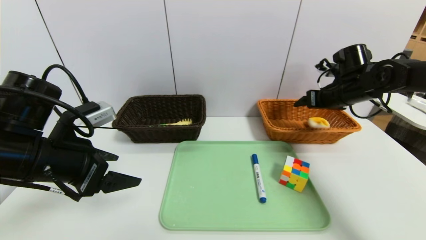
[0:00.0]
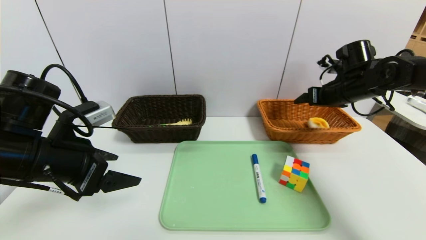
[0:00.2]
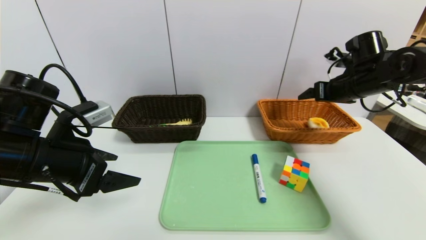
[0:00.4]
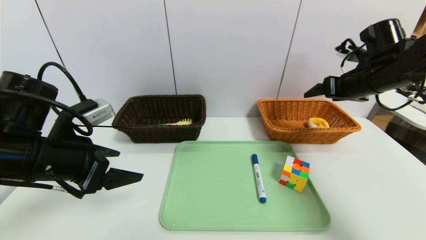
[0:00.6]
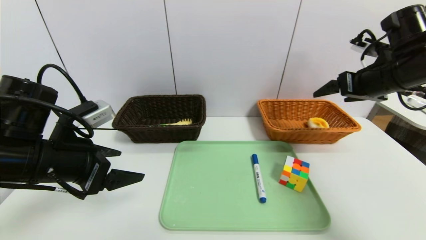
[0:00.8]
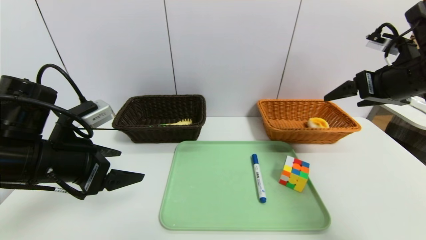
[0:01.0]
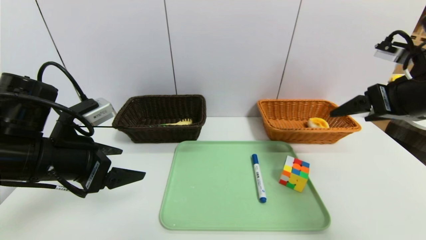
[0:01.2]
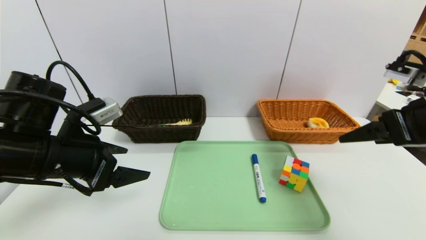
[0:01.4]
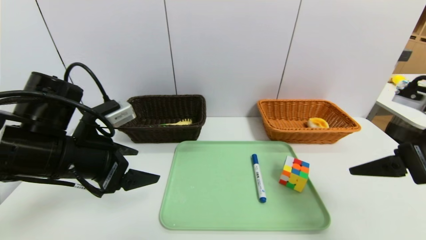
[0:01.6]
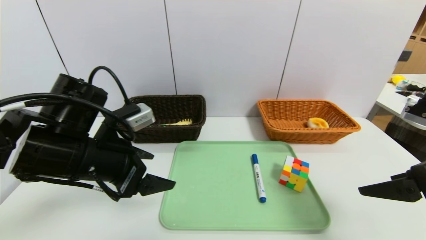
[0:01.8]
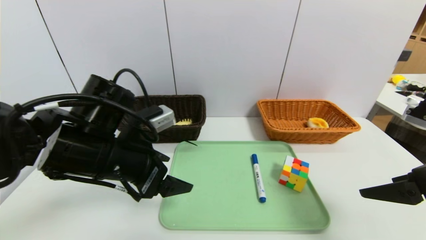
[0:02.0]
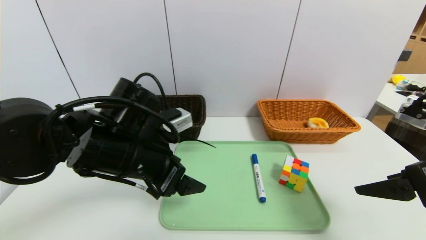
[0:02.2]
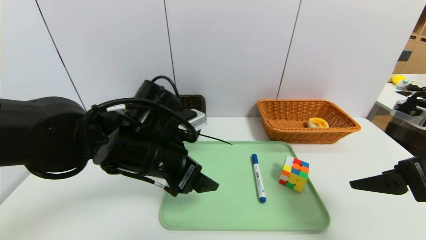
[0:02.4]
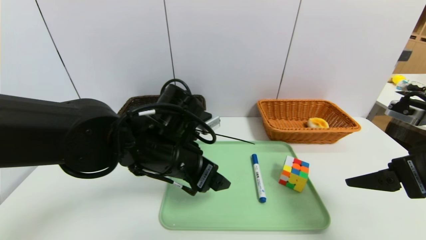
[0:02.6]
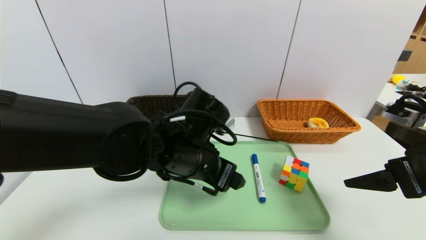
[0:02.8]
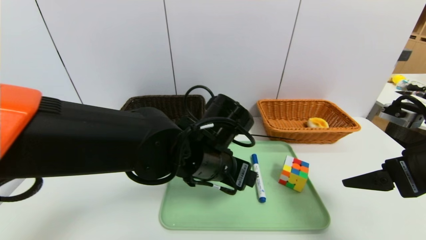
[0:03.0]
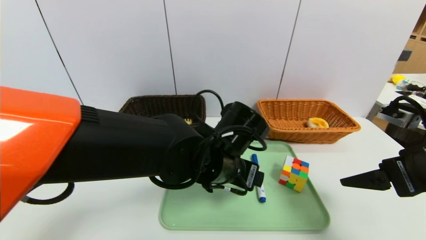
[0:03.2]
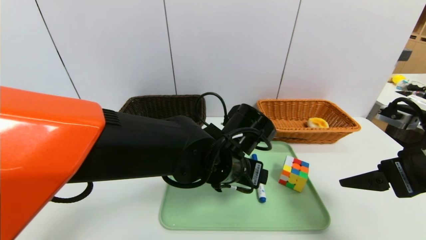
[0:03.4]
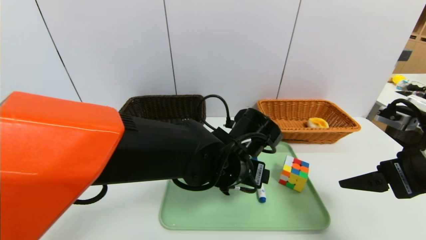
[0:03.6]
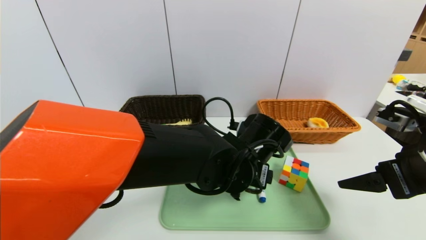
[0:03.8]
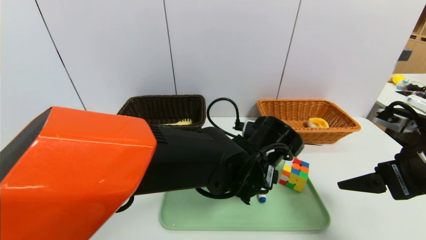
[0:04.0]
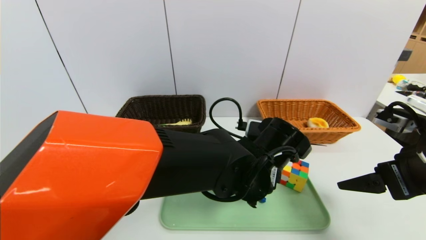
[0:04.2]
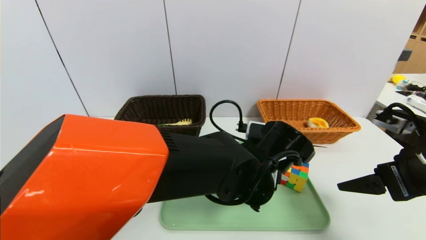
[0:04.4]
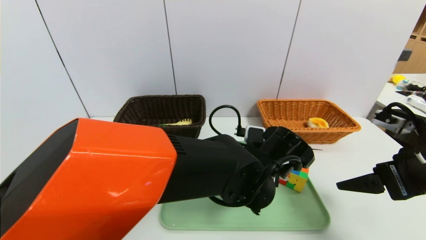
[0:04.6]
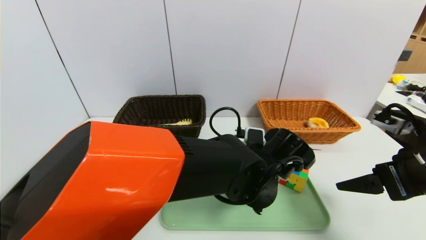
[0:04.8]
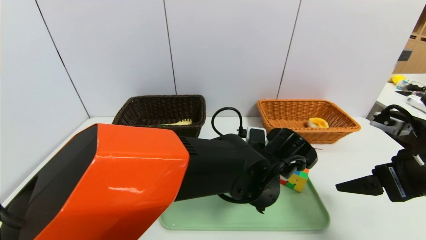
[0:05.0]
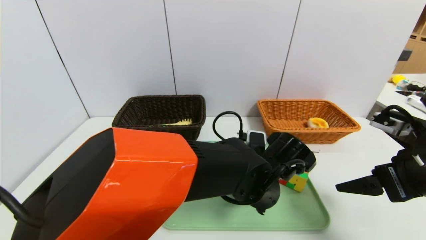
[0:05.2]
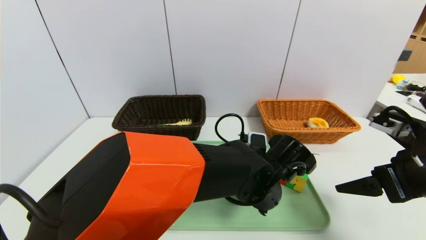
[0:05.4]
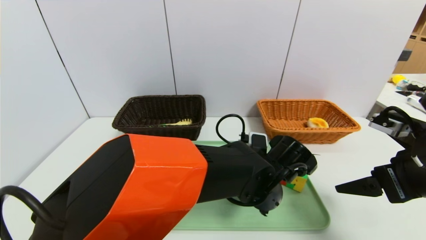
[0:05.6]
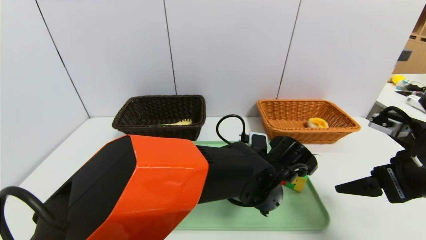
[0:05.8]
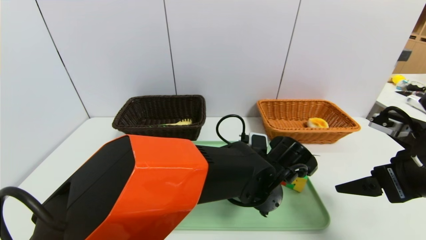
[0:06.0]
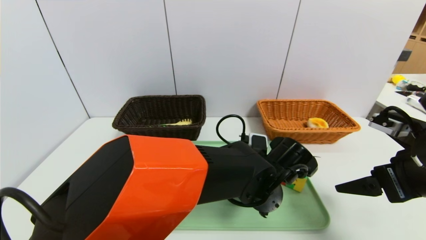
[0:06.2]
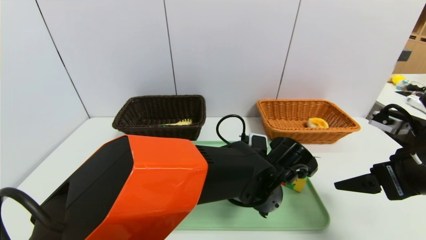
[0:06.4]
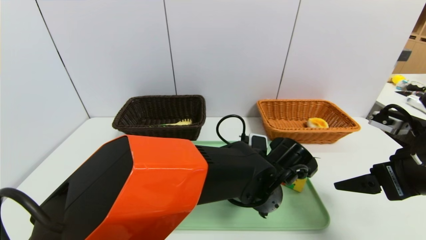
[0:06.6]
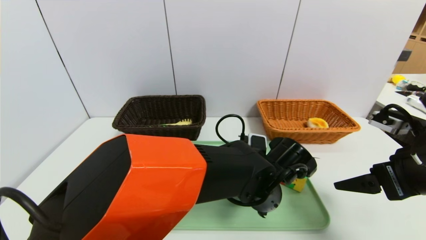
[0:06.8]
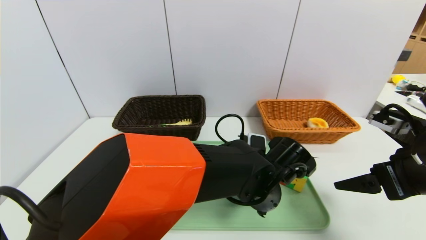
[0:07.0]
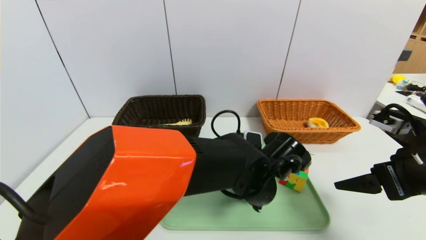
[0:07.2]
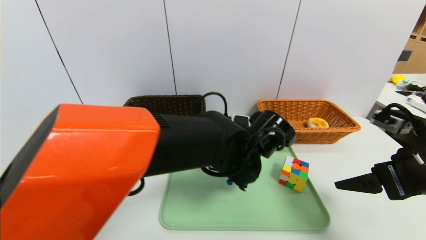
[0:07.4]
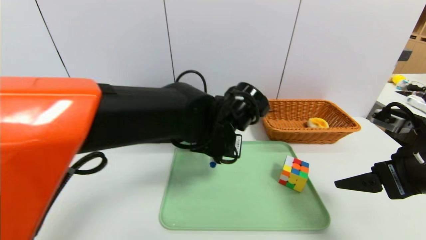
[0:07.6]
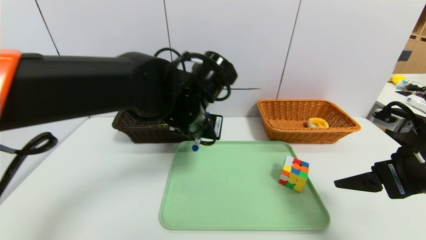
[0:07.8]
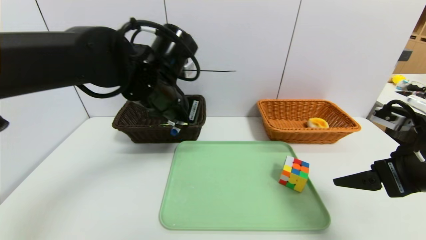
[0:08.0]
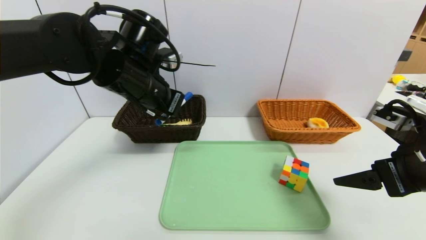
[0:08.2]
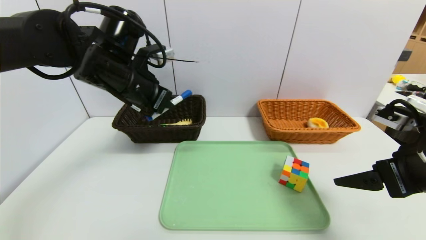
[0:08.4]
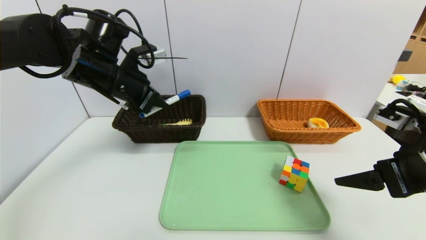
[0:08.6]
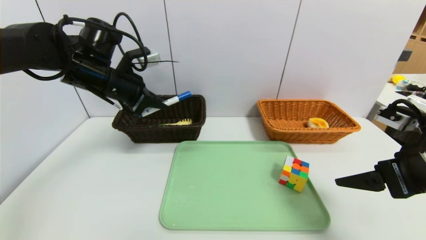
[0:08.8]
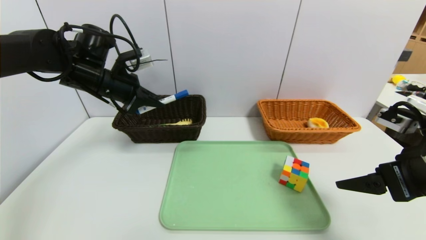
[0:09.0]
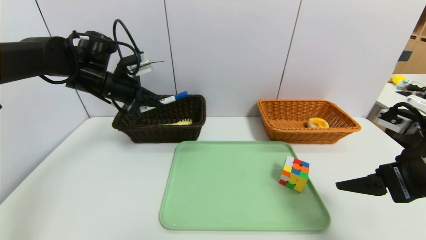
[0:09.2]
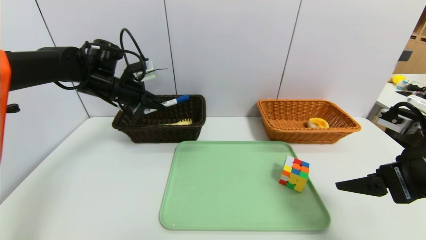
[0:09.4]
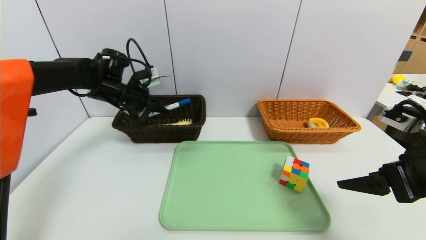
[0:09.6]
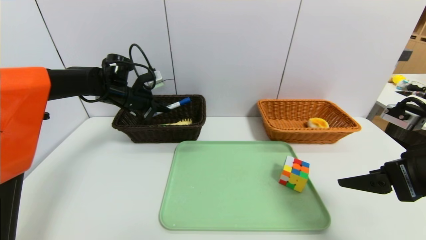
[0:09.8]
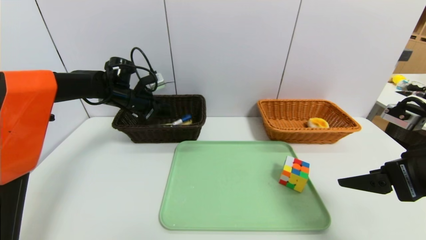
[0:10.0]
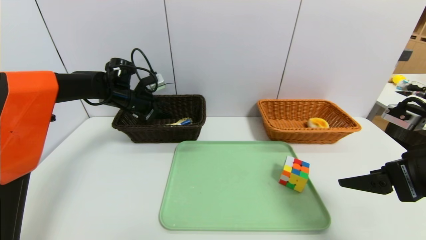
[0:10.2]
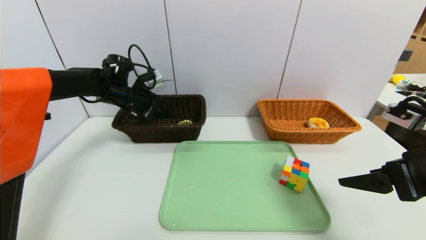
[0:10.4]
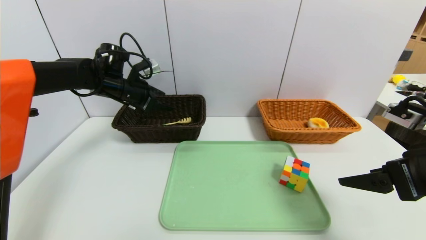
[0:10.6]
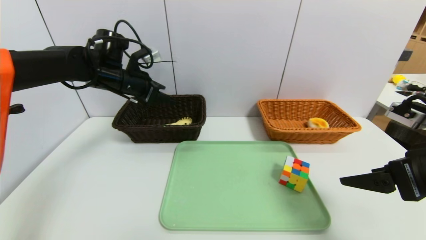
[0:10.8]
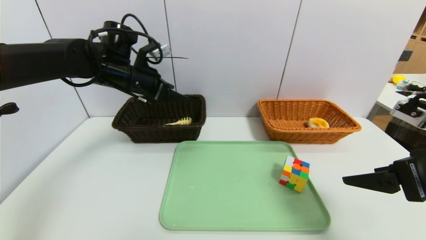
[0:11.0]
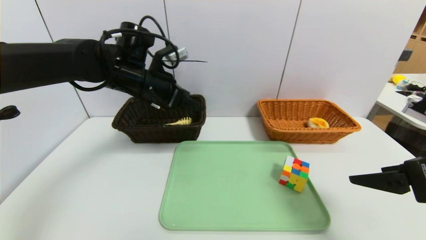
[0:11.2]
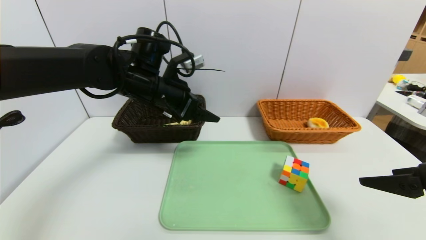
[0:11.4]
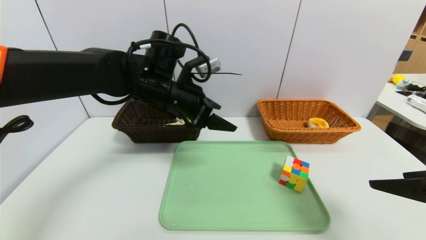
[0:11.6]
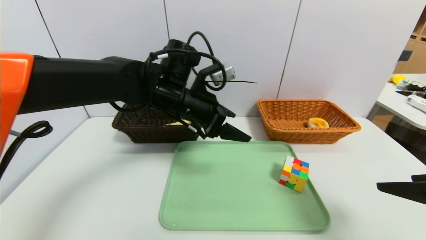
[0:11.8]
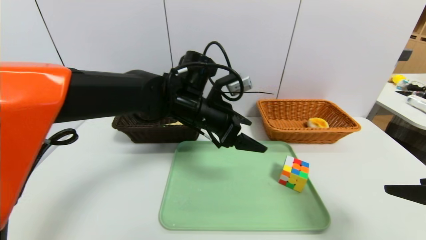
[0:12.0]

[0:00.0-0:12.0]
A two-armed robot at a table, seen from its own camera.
Task of the whole recording: place the food in the right basket with the right gripper, and place the non food items in the left basket with the left gripper.
Step, 0:00.8 to 0:11.0: Grasp the blue marker and put it in the left basket.
0:00.0 to 0:01.6: The right gripper goes approximately 25 cm backward.
0:01.6 to 0:03.0: The left gripper is displaced to the right by about 20 cm.
0:03.0 to 0:04.4: The left gripper goes approximately 10 cm to the right.
0:06.0 to 0:07.6: The left gripper moves upward and to the left, roughly 15 cm, and closes its fingers.
0:07.6 to 0:09.0: The left gripper is displaced to the left and forward by about 25 cm.
0:09.0 to 0:10.4: The left gripper travels forward and downward by approximately 10 cm, and opens.
0:10.4 to 0:12.0: The right gripper is displaced backward by about 5 cm. The left gripper heads to the right and backward, covering about 25 cm.

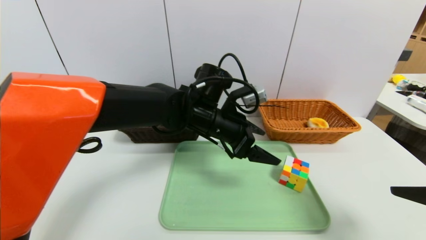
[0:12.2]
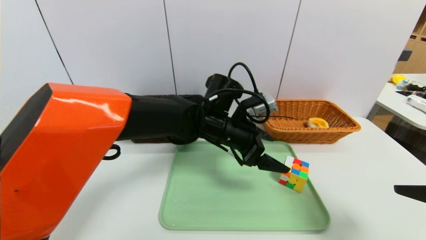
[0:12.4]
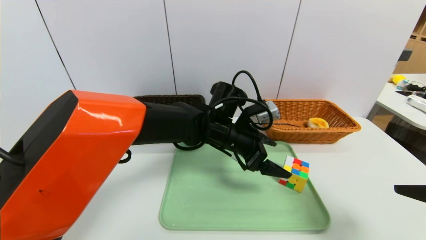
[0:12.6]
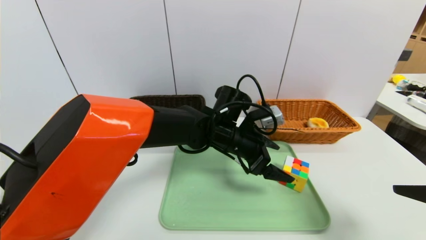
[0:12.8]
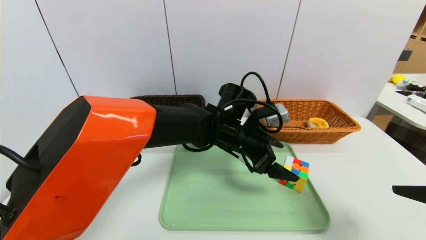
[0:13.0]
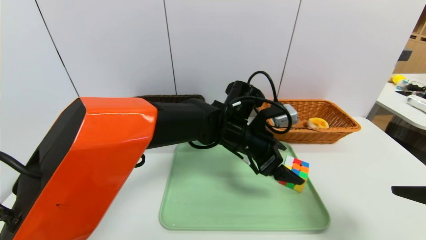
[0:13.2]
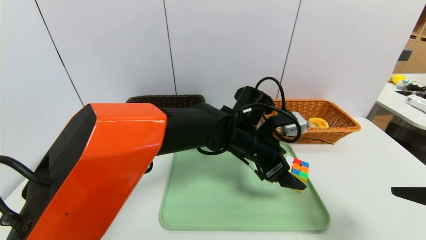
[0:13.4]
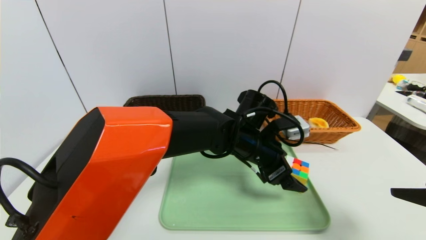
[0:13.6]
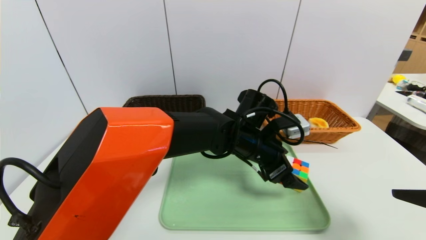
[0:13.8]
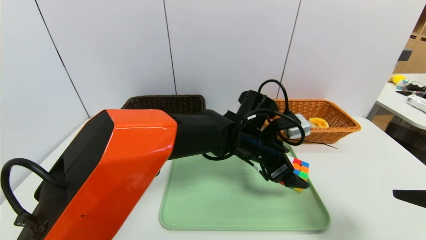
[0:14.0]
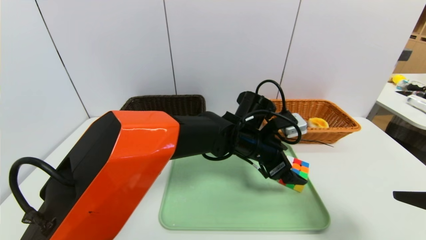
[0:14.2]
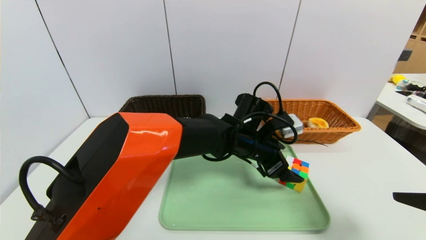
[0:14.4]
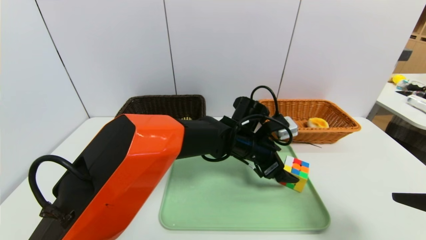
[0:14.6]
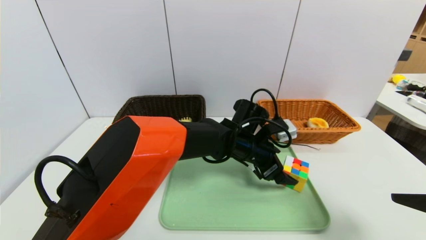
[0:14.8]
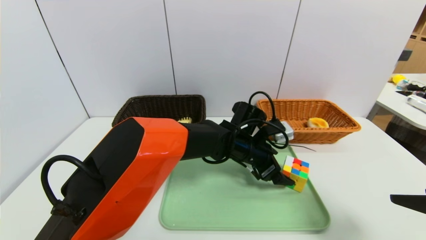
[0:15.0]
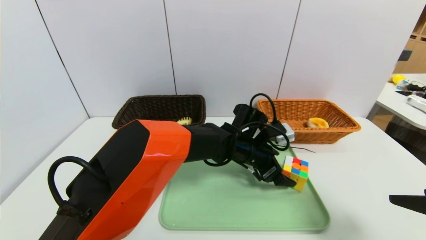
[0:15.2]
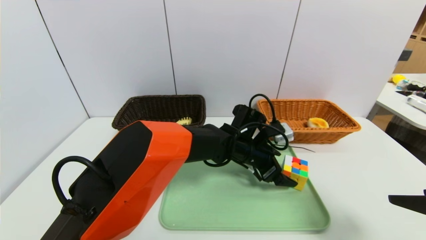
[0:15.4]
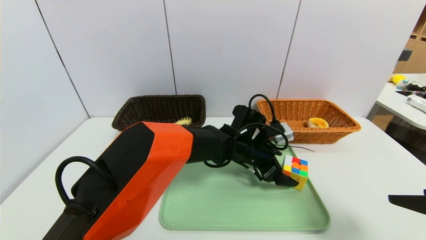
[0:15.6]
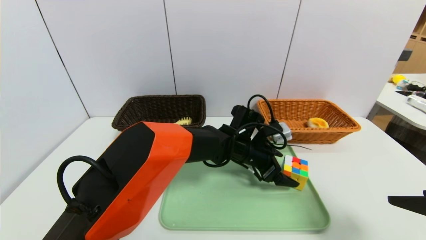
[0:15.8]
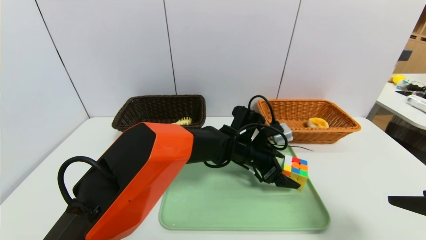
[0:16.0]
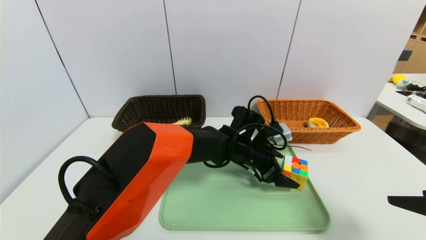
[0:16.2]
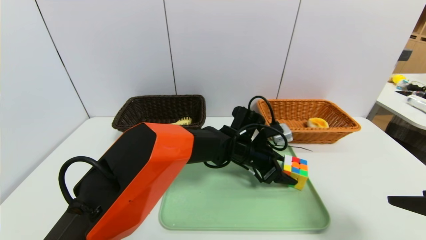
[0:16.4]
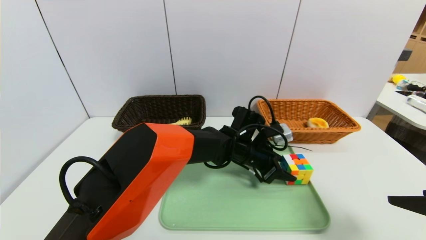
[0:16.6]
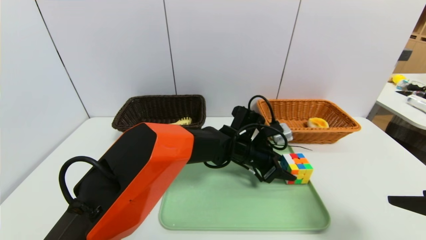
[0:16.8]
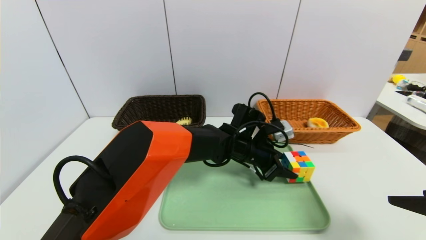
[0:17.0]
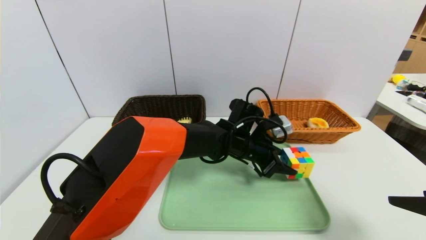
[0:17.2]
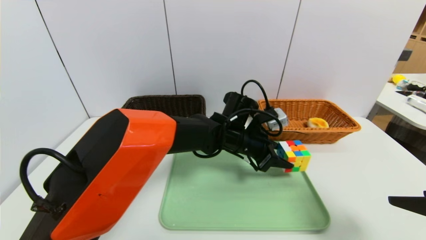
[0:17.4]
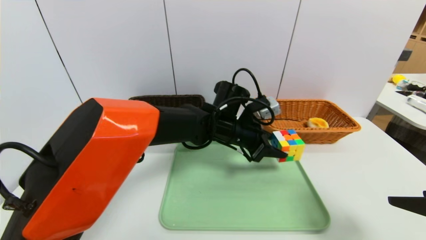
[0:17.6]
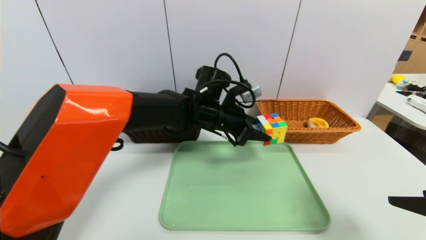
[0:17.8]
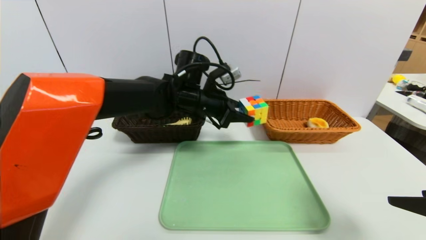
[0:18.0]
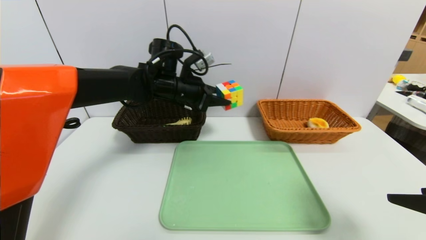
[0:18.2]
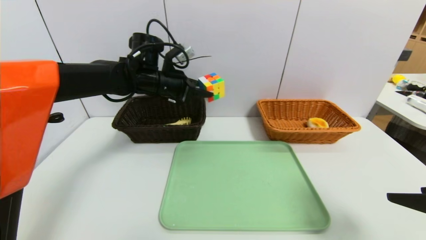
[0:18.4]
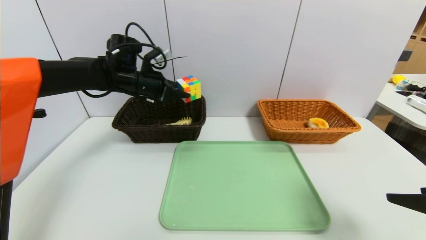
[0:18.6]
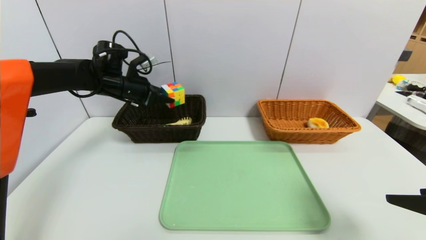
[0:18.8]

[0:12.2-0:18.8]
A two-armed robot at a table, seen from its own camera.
Task of the whole recording: place the food in the right basket with the right gripper, and place the non food items in the left basket with the left gripper.
0:12.2 to 0:13.8: The left gripper heads to the right, covering roughly 10 cm.
0:13.8 to 0:15.4: The left gripper travels downward by some 5 cm.
0:15.4 to 0:17.2: The left gripper closes its fingers.
0:17.2 to 0:18.8: The left gripper is displaced to the left by about 30 cm.
